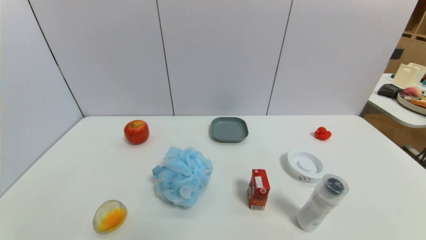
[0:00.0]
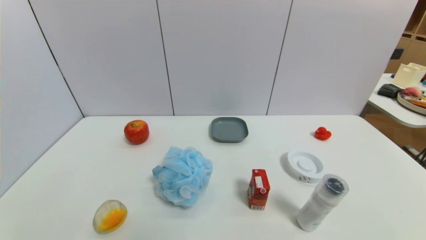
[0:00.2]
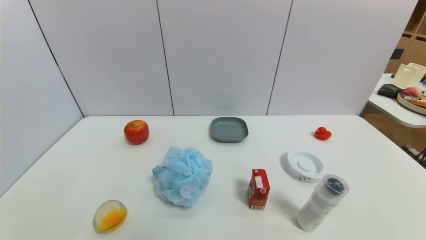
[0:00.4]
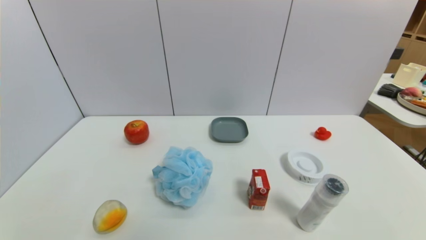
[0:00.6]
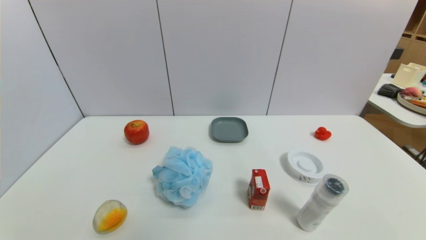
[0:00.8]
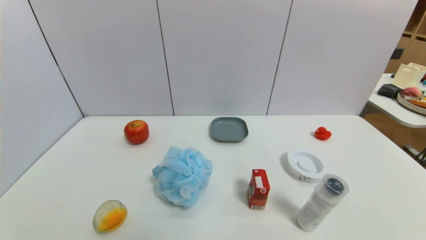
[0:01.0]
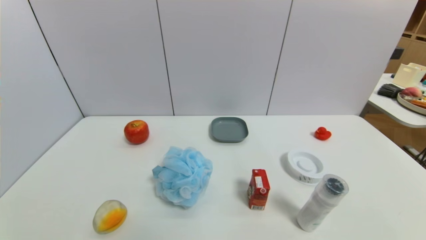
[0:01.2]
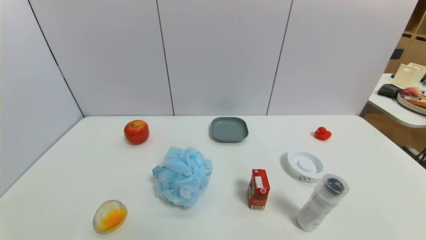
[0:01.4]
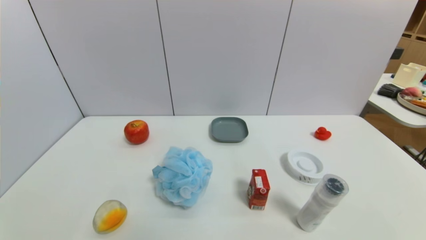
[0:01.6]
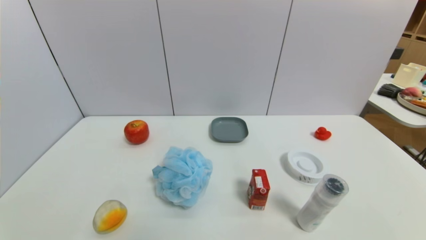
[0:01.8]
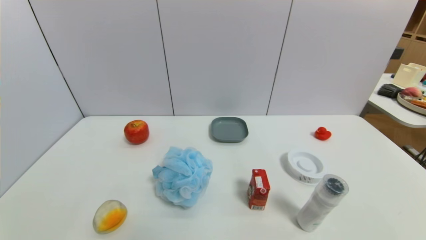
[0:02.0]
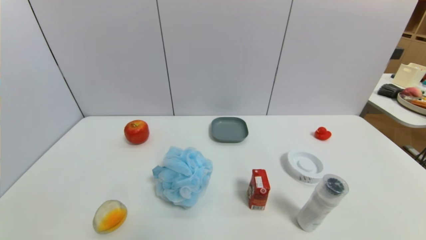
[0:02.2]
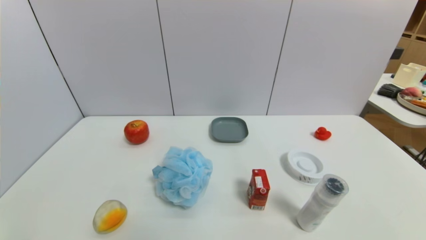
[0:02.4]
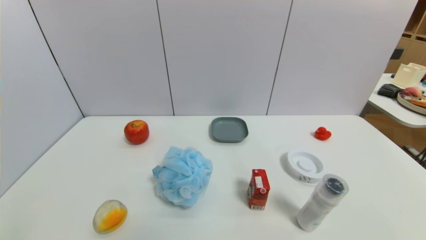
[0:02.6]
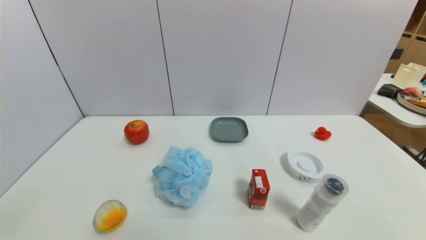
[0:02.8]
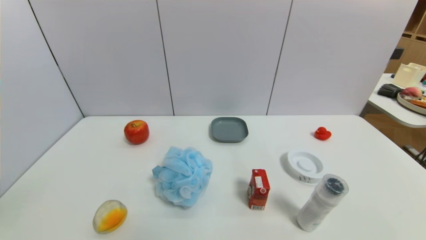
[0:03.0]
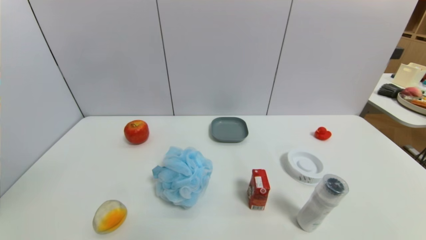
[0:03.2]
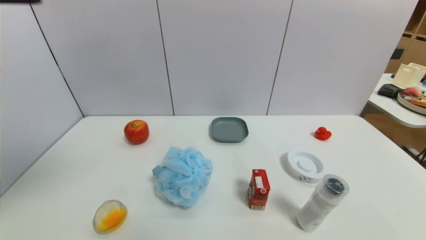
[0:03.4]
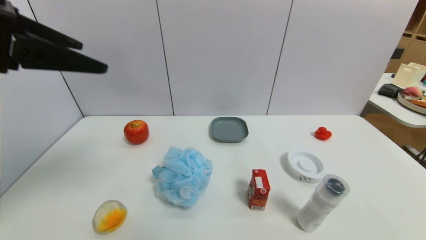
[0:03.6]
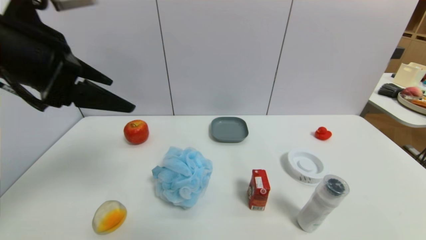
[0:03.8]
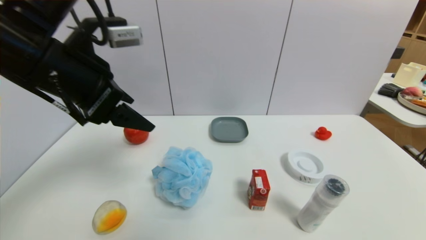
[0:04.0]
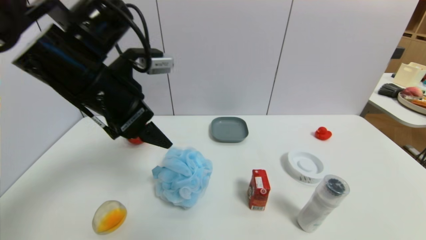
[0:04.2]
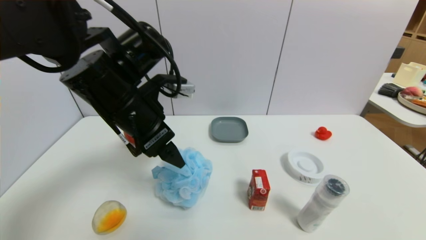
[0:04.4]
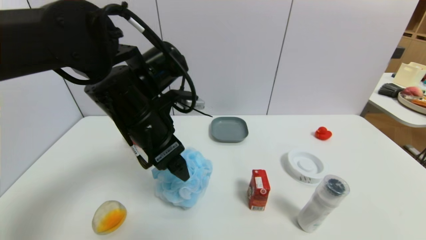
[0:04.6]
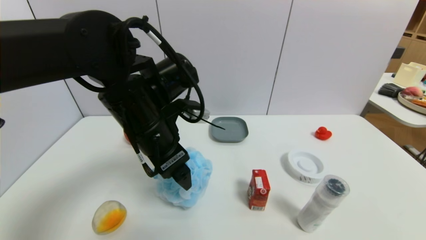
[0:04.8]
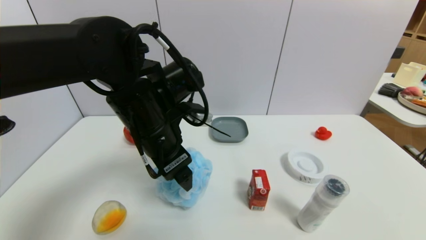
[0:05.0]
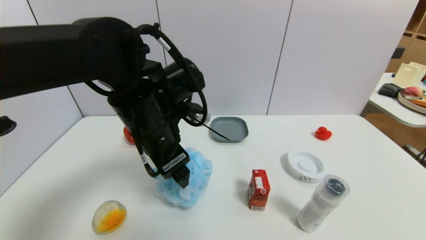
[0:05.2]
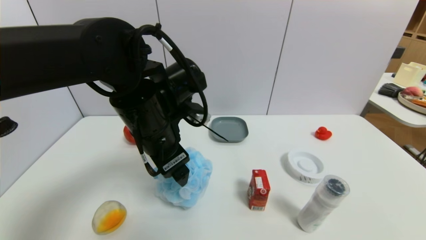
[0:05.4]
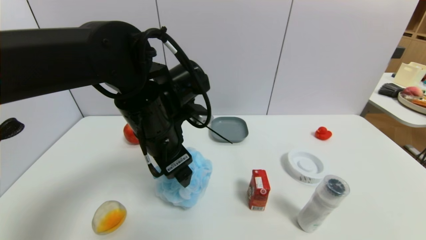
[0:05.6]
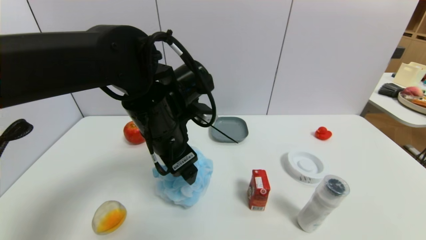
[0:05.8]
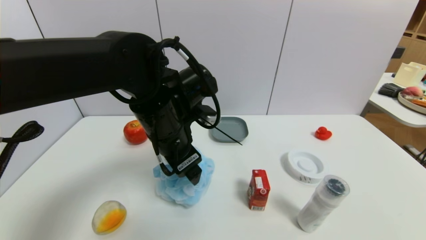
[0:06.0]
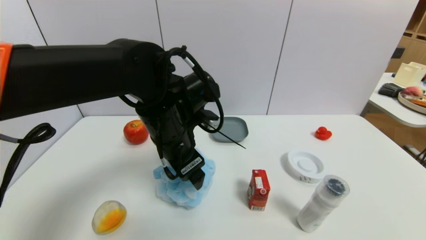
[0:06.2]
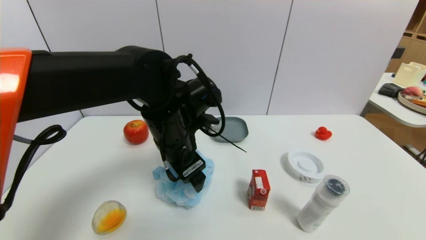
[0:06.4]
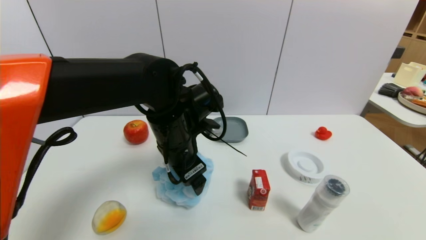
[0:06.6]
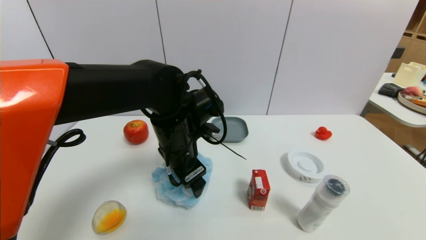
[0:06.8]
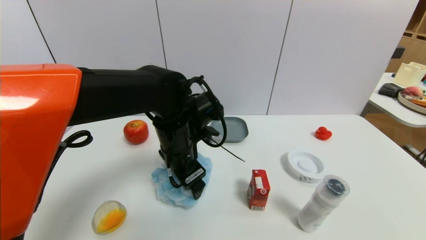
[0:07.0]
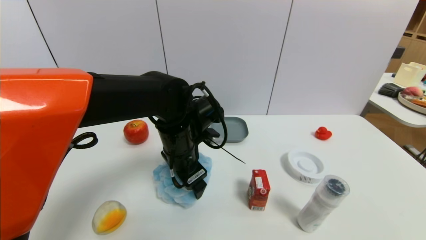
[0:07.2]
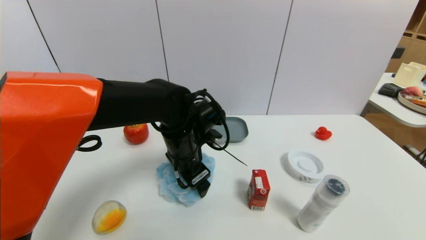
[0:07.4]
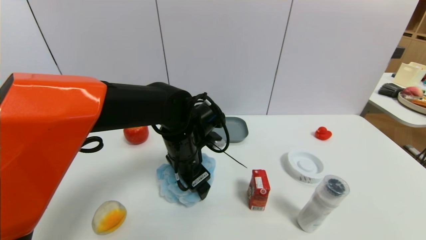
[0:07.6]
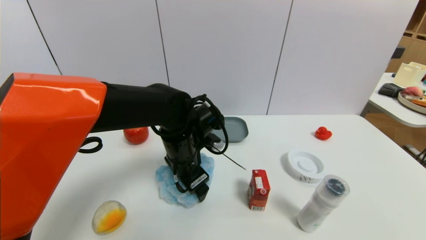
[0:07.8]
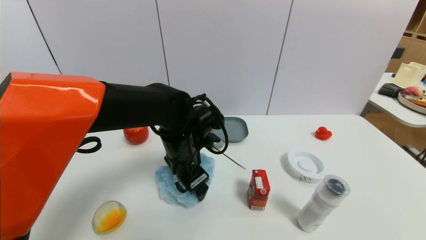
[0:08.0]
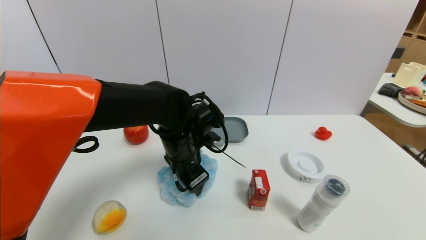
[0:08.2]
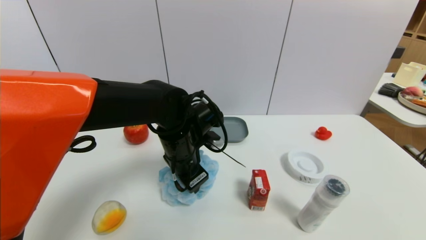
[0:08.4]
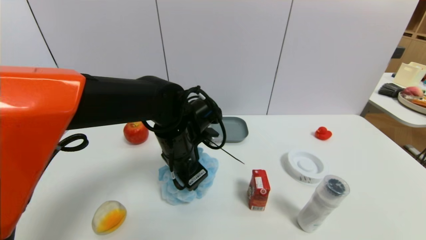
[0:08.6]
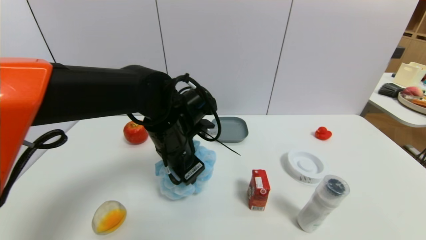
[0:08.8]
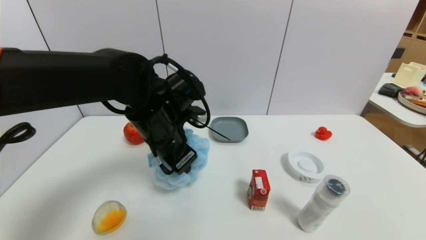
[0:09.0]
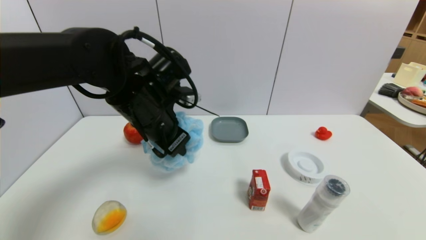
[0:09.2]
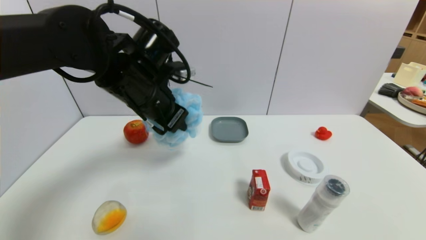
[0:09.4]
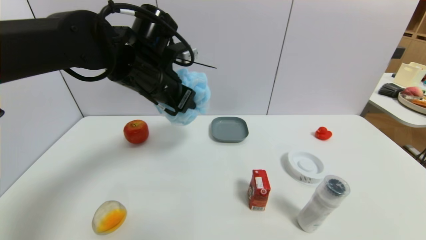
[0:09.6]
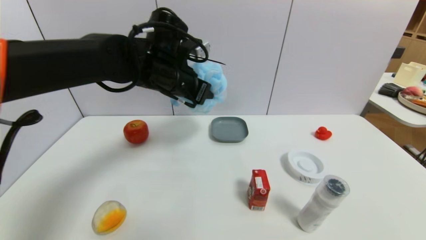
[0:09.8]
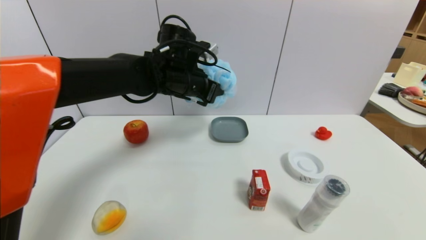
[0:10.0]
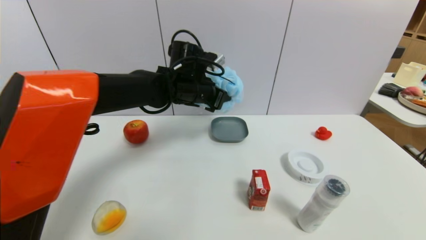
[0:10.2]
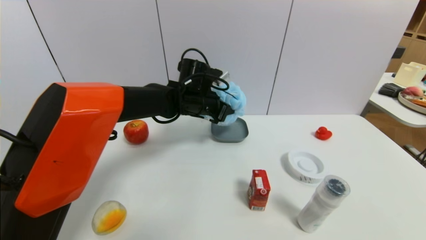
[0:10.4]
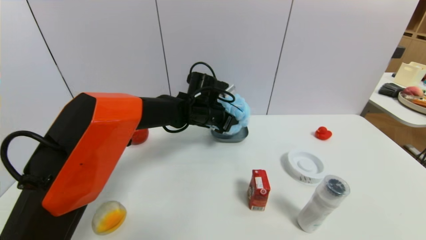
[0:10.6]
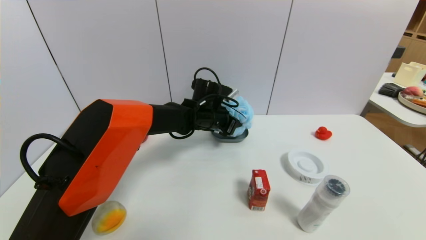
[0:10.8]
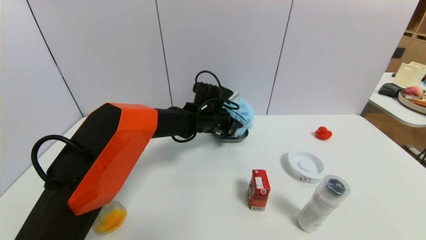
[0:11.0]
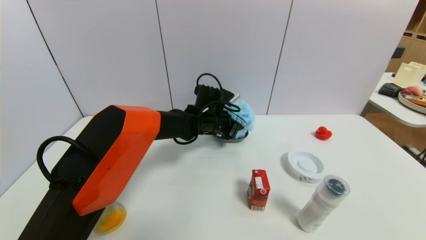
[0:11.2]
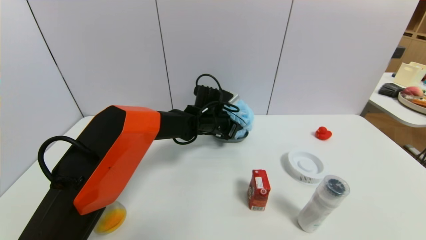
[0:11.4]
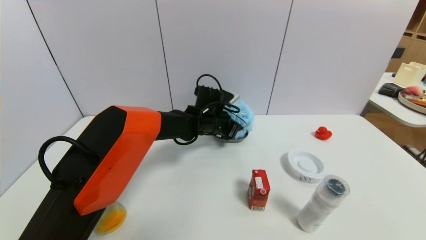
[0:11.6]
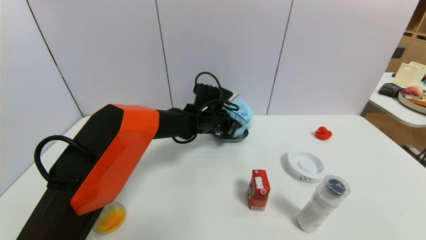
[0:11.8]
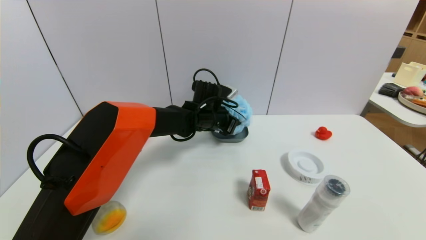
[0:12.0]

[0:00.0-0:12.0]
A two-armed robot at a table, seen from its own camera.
Task of the whole recording: use a gripper to pick the target object and place on the dish.
Step, 0:00.0 to 0:08.4: Grasp the shower sphere with the left gripper.
0:00.0 to 0:01.6: The two grippers keep their place.
0:03.0 to 0:04.4: The left gripper is displaced forward, to the right and downward by roughly 35 cm.
0:04.4 to 0:06.0: The left gripper moves to the right, approximately 5 cm.
0:06.0 to 0:07.6: The left gripper is displaced downward by some 10 cm.
0:07.6 to 0:09.0: The left gripper travels upward by approximately 5 cm, and closes.
0:09.0 to 0:10.4: The left gripper moves forward, roughly 15 cm.
0:10.4 to 0:12.0: The left gripper changes place by some 5 cm.

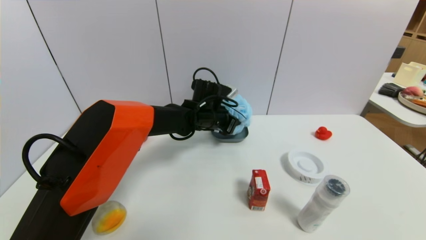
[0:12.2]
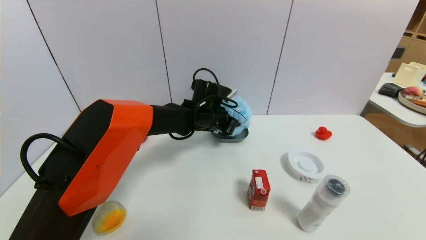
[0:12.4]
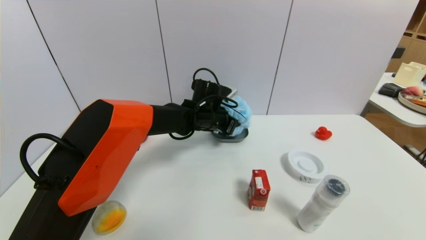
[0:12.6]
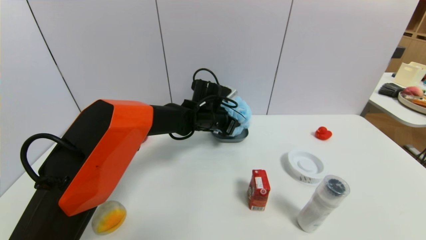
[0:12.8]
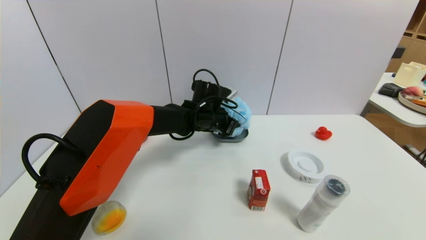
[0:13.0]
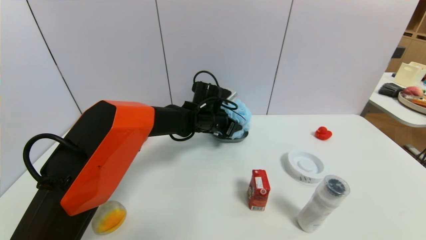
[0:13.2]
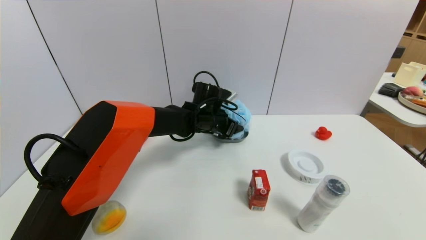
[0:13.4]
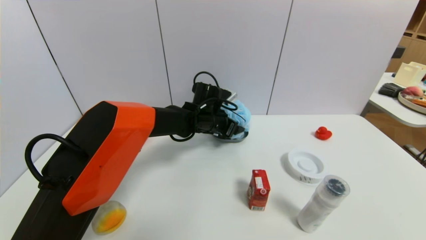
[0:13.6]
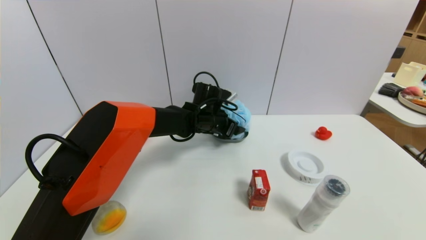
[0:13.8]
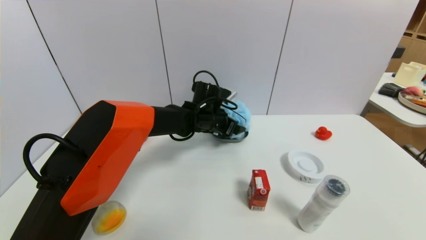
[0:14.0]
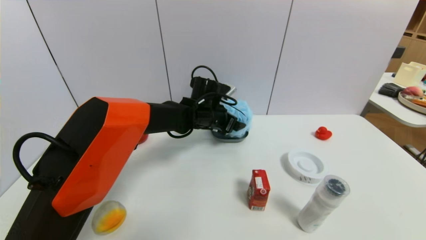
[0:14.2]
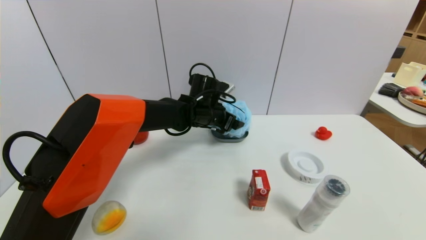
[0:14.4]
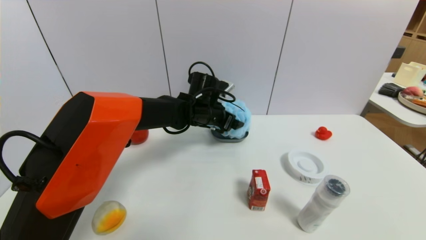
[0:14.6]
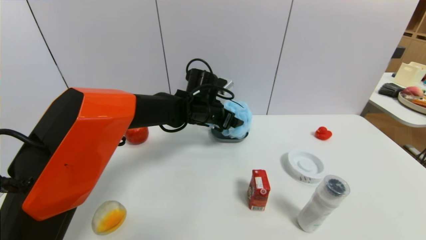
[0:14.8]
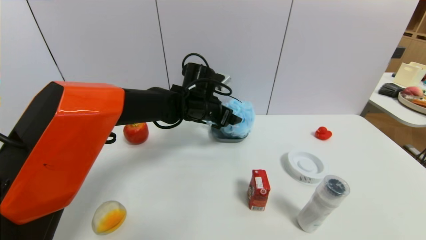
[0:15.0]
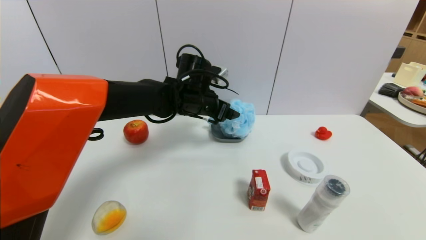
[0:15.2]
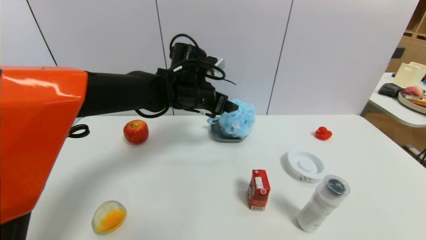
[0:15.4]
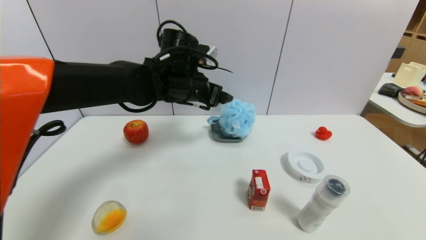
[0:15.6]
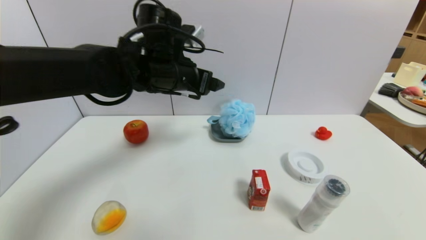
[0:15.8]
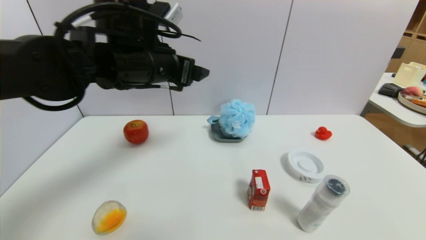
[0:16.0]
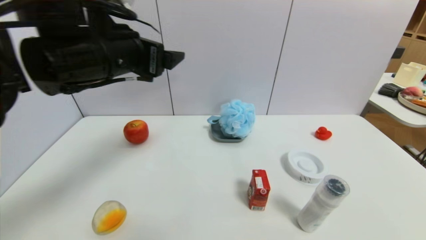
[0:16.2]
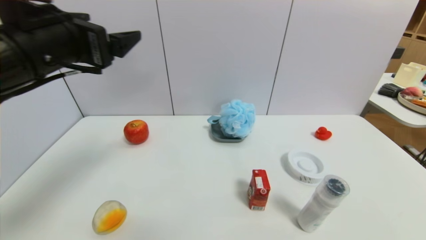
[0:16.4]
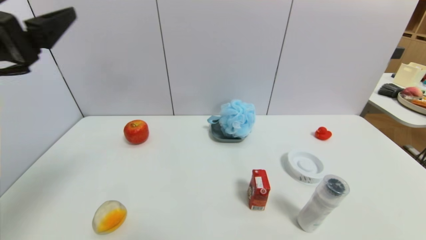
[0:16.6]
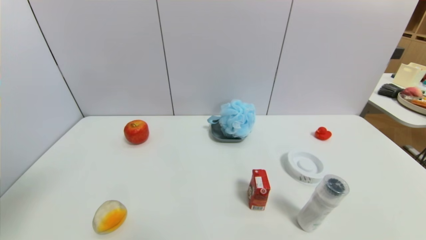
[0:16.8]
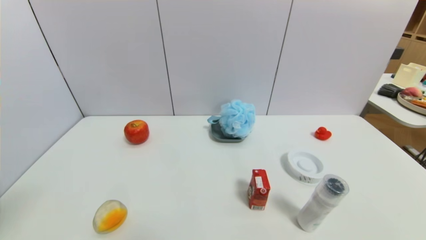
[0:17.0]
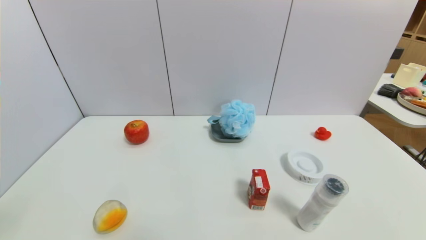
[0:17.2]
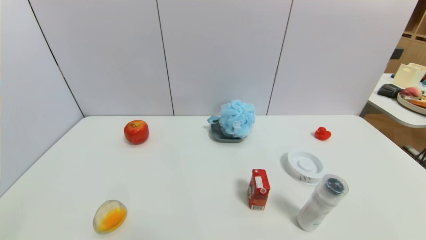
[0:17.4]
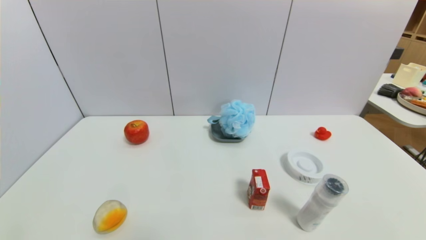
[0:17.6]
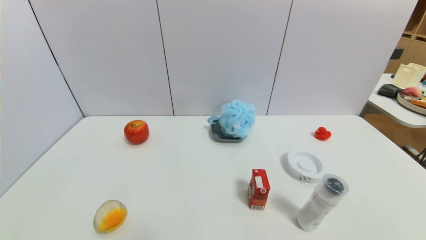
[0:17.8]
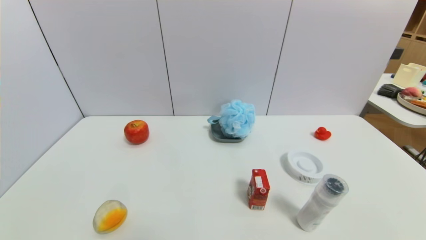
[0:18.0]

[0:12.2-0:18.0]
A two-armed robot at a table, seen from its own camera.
Task of the whole recording: use a gripper to pick the target object and place on the dish.
Step, 0:12.2 to 0:15.2: Place the shower sphere on the dish with the left gripper.
0:12.2 to 0:13.6: The left gripper opens its fingers.
0:13.6 to 0:15.0: The left gripper is displaced upward by roughly 5 cm.
0:15.0 to 0:16.6: The left gripper goes approximately 35 cm backward, to the left and upward.
0:16.6 to 0:18.0: The left gripper shifts about 25 cm downward and backward.
